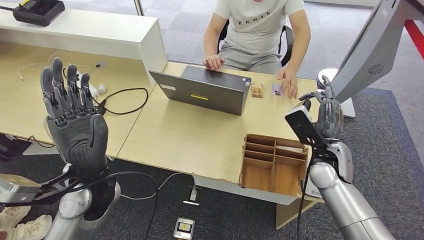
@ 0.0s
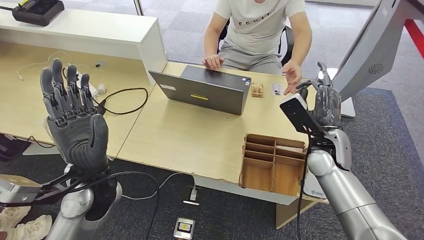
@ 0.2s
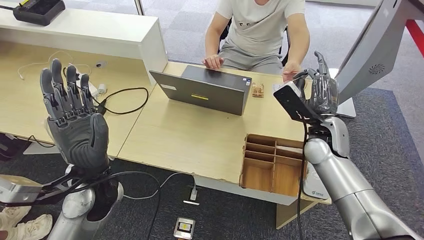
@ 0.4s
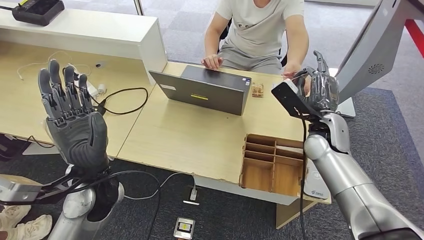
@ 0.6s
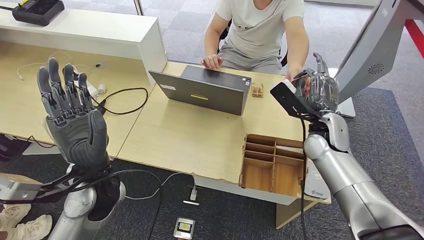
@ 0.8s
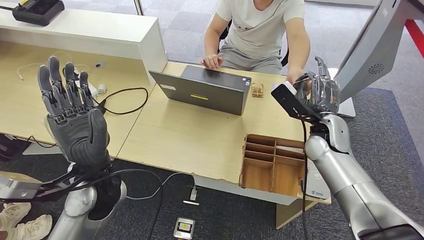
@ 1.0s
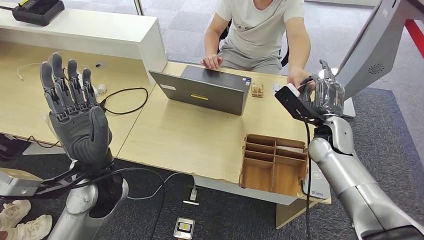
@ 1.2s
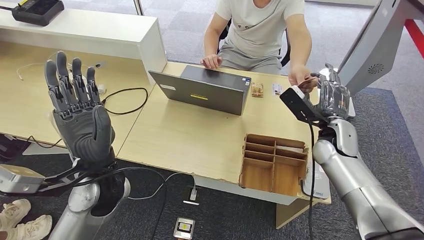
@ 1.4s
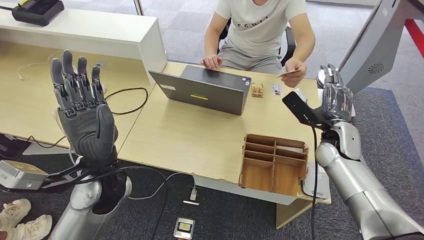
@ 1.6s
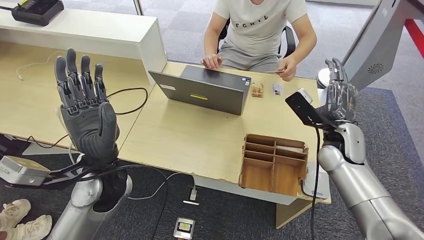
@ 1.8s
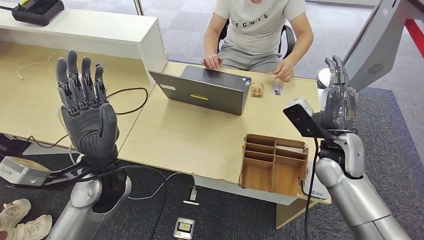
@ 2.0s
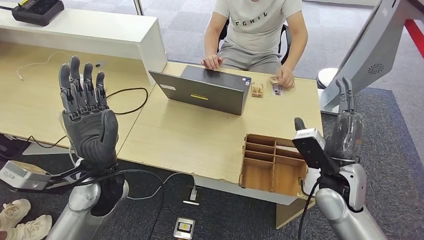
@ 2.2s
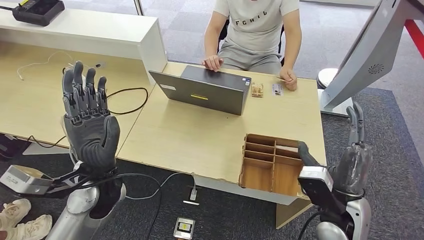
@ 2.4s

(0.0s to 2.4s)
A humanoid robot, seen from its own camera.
Step, 0.0s - 2.4s: Hand the room key to the person.
0.0s - 1.2s: The right hand moves roughly 5 cm.
1.2s - 2.4s: The right hand heads backward, covering approximately 15 cm.

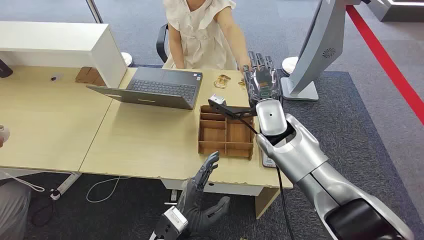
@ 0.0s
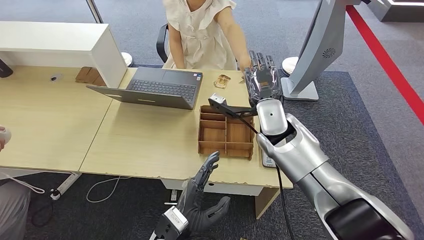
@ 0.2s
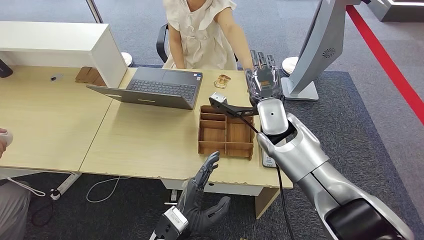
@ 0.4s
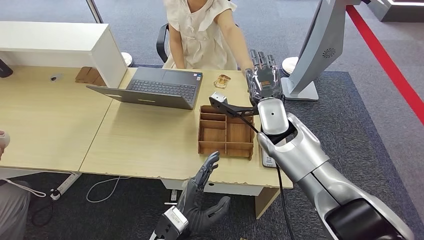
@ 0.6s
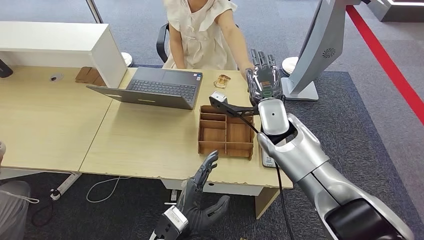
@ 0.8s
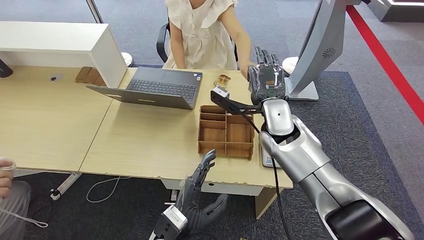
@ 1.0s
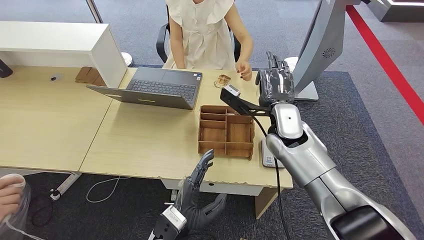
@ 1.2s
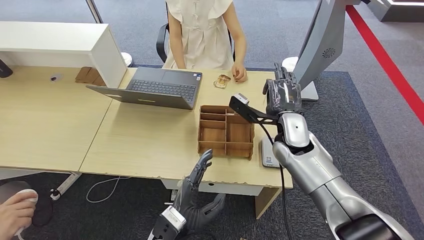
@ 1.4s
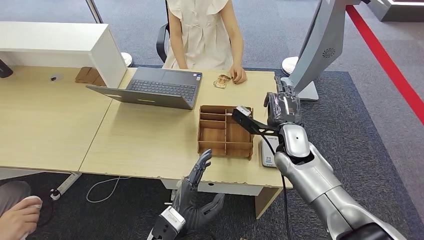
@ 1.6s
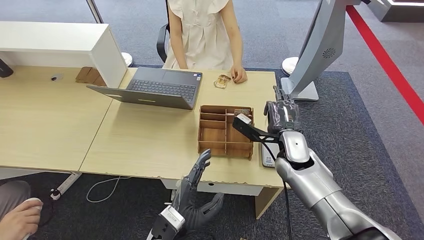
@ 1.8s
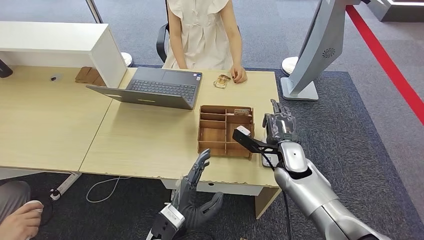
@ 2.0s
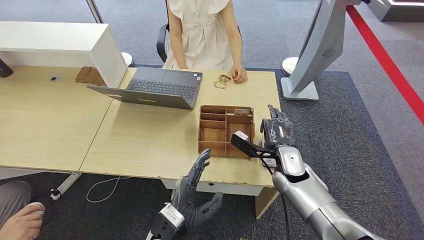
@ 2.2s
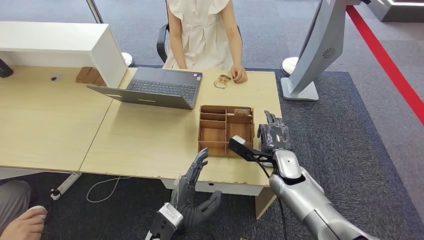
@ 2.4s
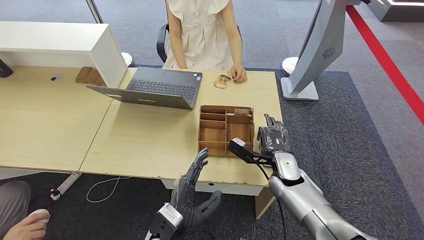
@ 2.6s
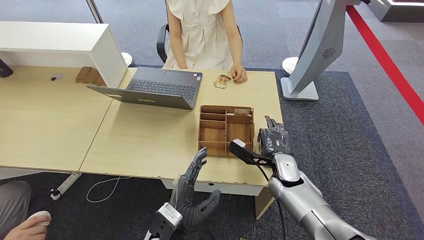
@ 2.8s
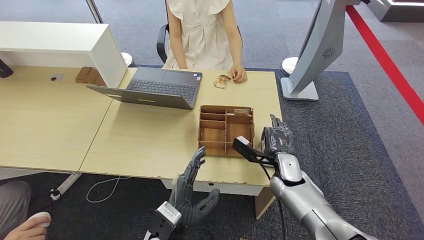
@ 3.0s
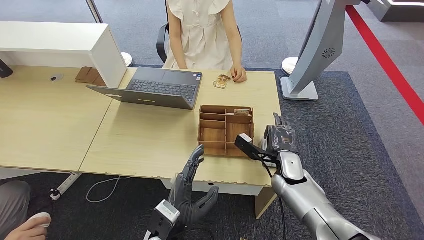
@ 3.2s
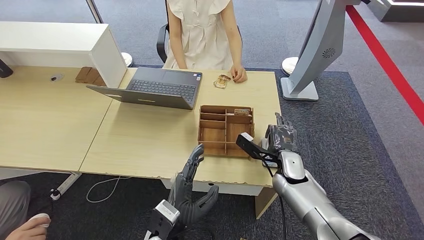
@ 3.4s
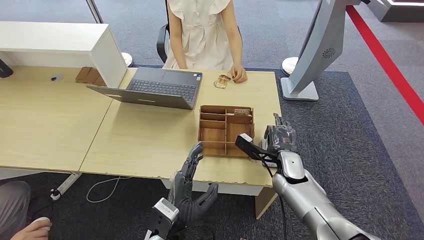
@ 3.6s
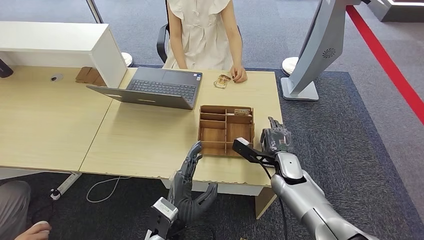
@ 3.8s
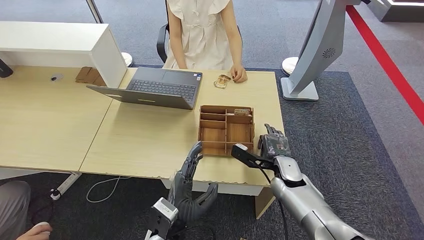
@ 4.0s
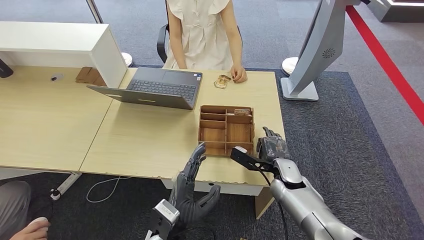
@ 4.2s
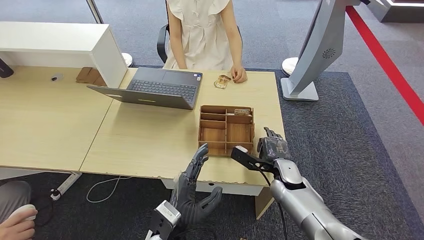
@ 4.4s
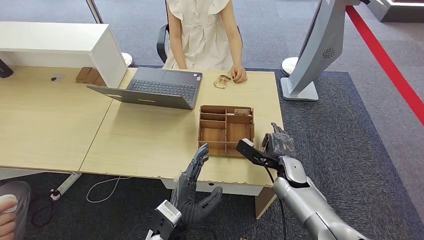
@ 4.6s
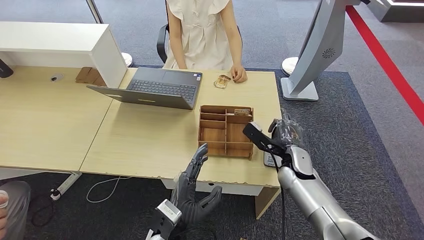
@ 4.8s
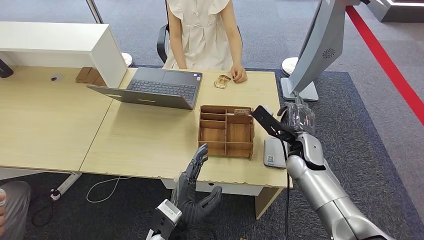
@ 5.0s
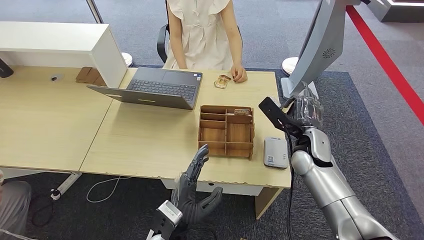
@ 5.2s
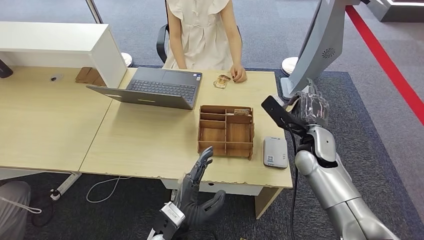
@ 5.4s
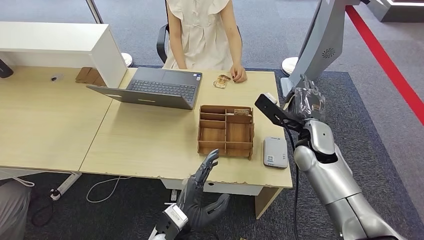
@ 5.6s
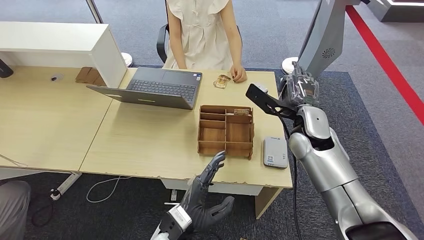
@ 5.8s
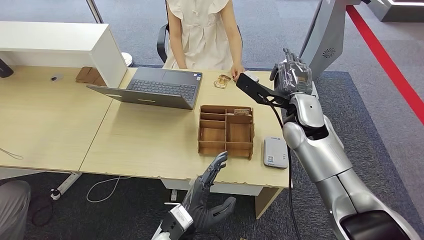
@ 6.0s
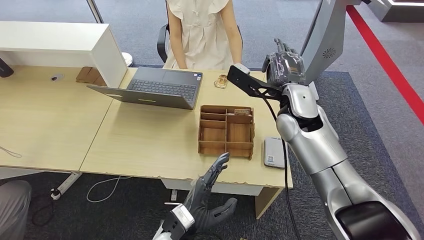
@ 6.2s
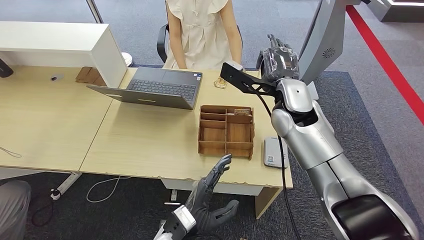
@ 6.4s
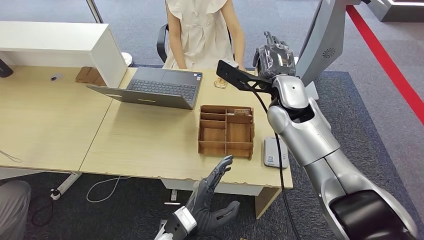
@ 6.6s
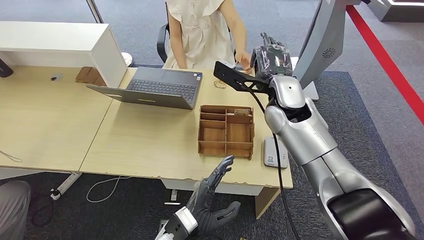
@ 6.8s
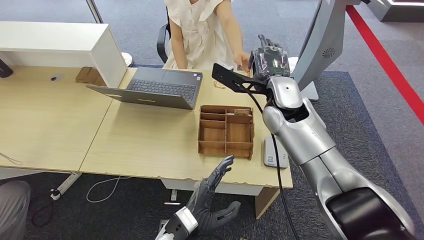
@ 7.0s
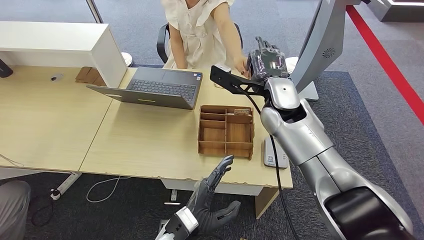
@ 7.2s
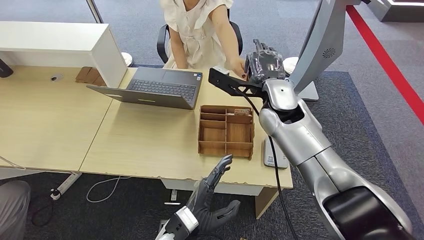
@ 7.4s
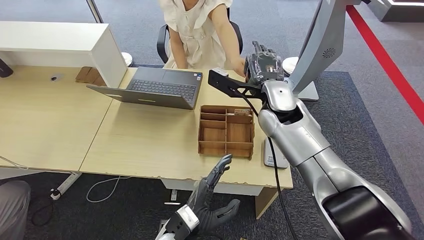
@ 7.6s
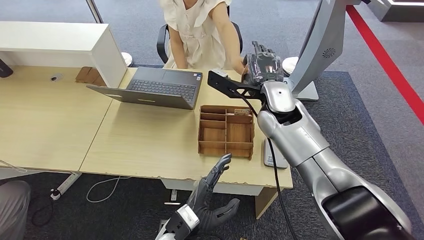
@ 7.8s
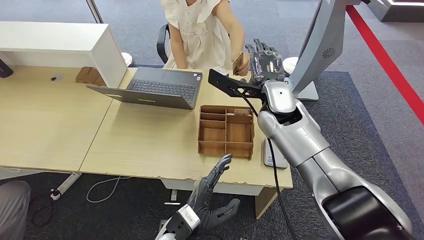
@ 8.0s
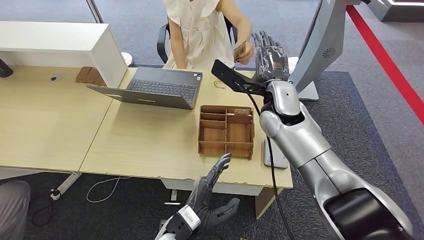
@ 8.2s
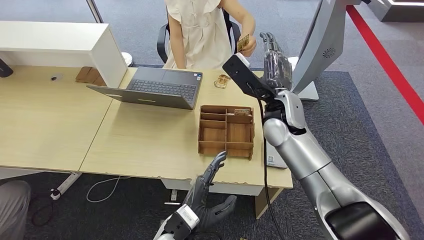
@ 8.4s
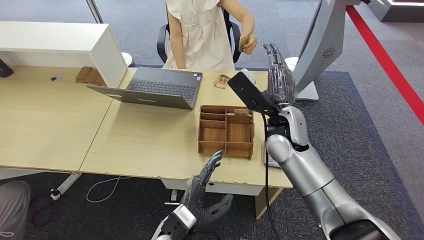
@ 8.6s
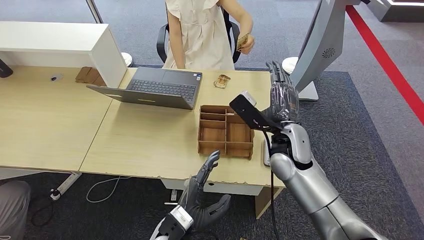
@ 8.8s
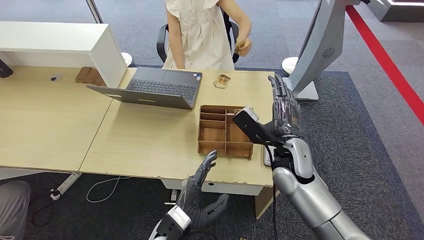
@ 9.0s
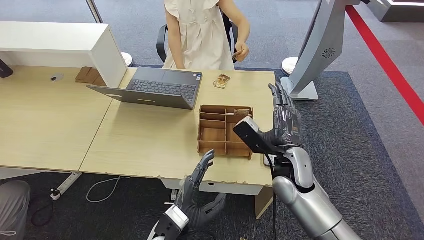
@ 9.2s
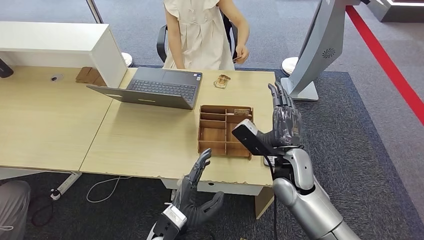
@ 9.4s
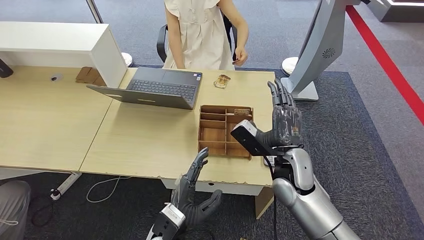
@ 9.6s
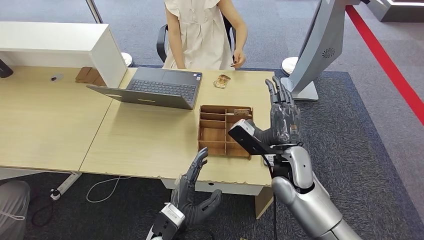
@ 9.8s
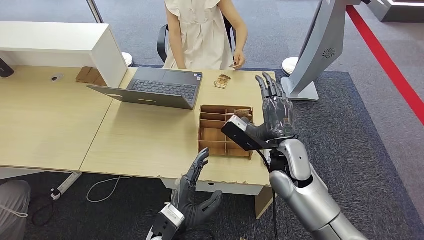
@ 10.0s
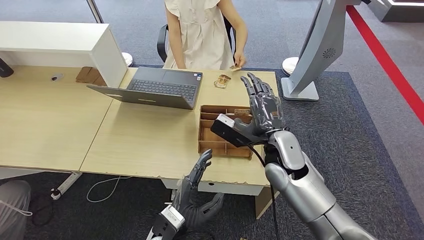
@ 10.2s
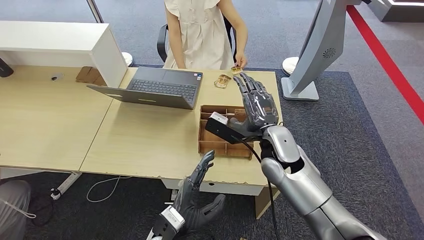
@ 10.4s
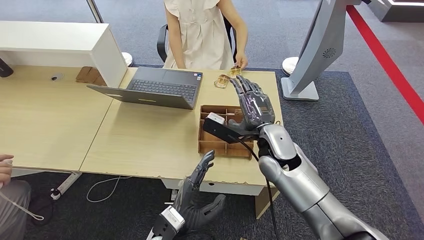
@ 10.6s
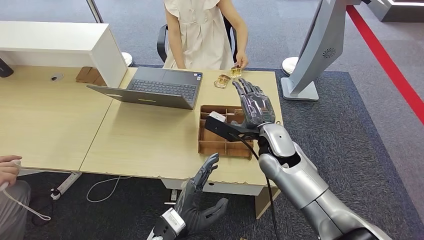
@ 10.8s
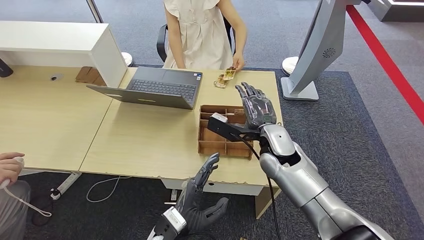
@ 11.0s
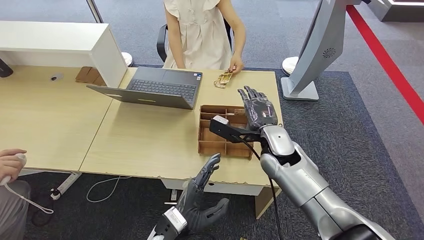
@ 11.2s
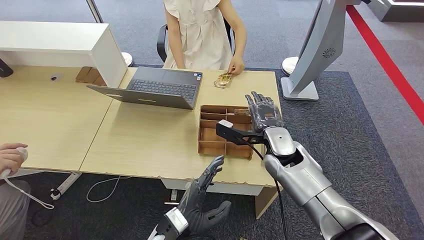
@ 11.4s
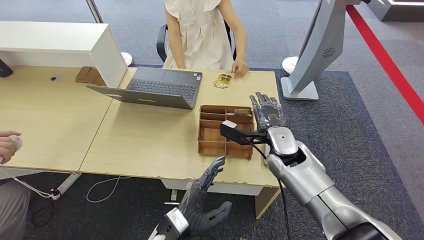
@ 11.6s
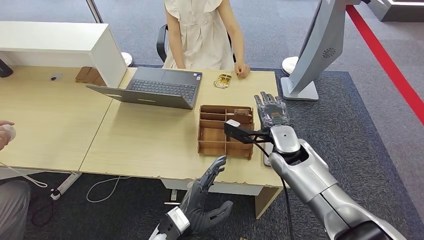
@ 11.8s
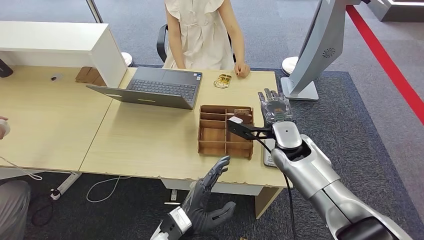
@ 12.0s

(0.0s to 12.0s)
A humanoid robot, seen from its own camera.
Step, 0.0s - 1.4s: Take the ID card from the person's hand.
Step, 1.6s - 6.2s: Place the ID card on the card reader.
Step, 6.4s - 8.6s: Hand the ID card to the person.
1.6s - 3.0s: The right hand heads downward, covering some 10 cm.
3.0s - 4.4s: The hands make only small movements.
4.4s - 6.0s: The right hand shifts about 20 cm upward.
6.0s - 7.6s: The right hand travels to the left by roughly 5 cm.
7.6s - 9.0s: The right hand moves backward and downward, about 15 cm.
10.4s - 12.0s: The right hand shifts by approximately 10 cm.

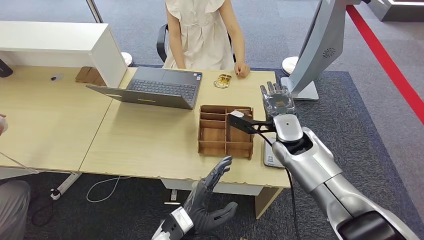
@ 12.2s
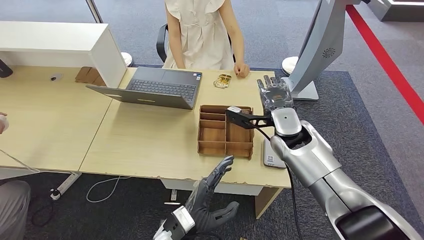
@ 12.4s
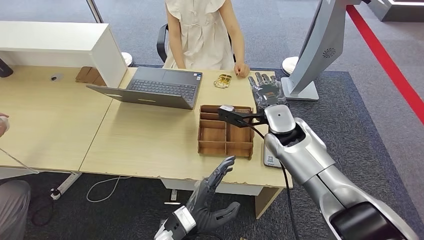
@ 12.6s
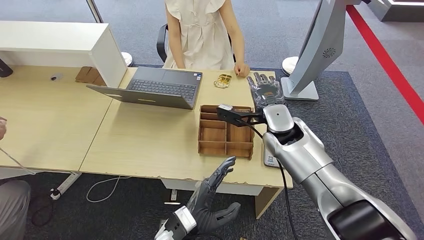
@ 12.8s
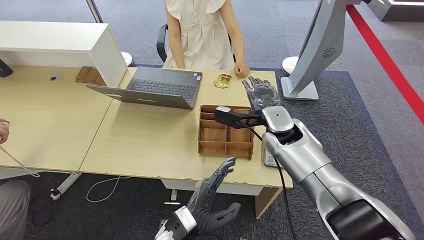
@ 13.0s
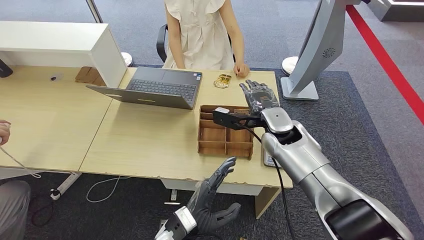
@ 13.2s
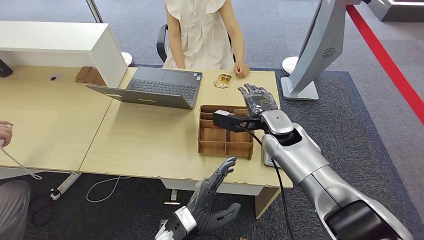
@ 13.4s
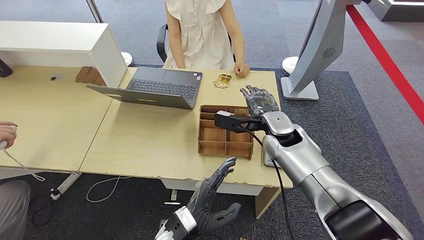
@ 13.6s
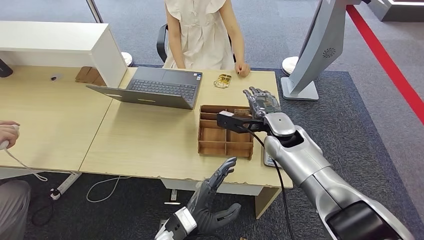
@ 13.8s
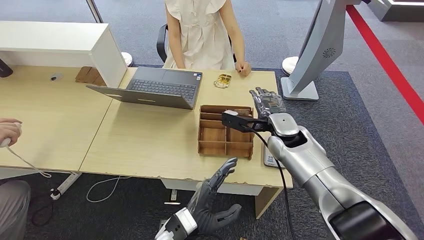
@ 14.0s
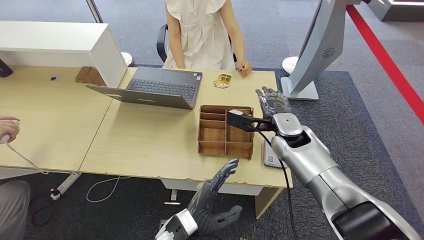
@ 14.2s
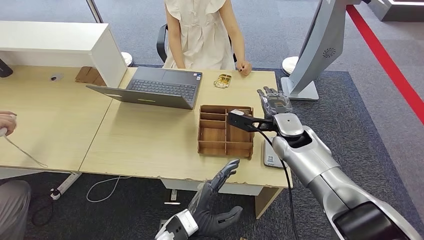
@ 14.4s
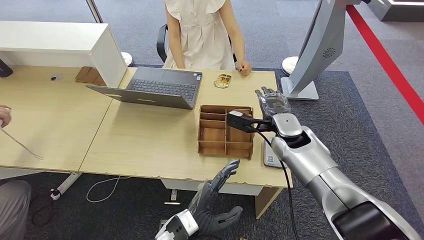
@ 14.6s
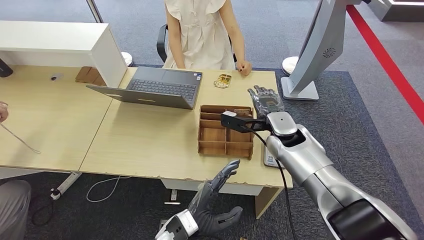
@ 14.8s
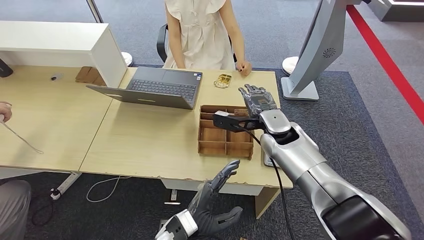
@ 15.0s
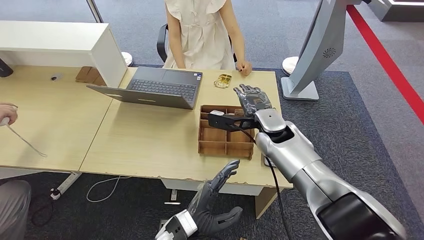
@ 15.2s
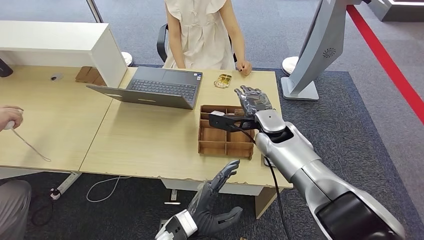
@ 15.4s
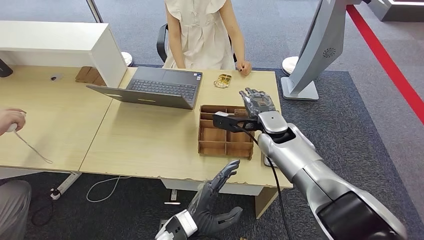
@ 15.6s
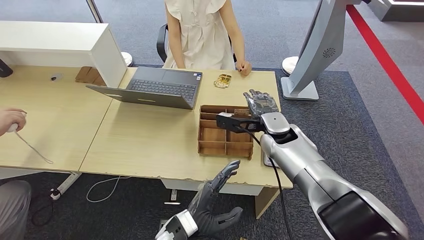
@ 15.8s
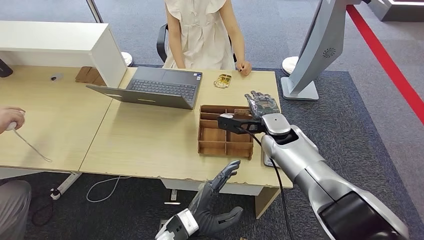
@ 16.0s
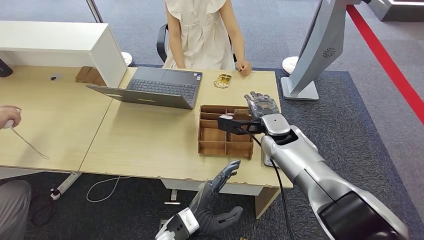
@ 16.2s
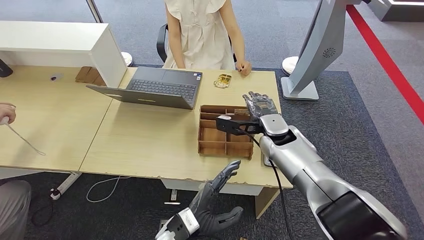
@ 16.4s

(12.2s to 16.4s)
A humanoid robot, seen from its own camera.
12.2s - 16.4s: The hands move only a little.
